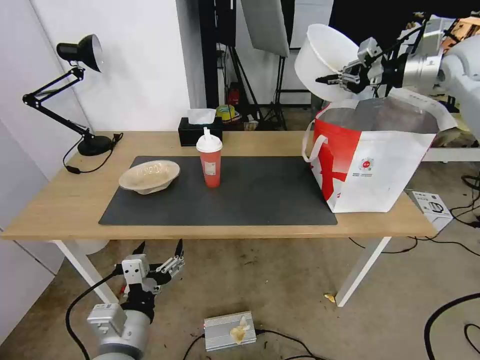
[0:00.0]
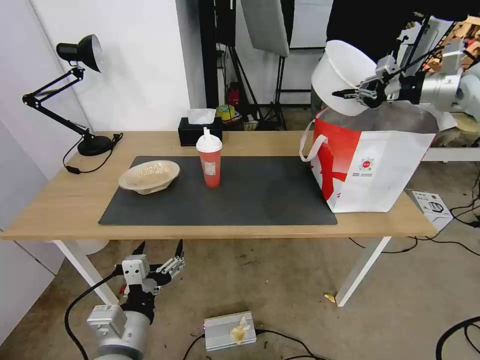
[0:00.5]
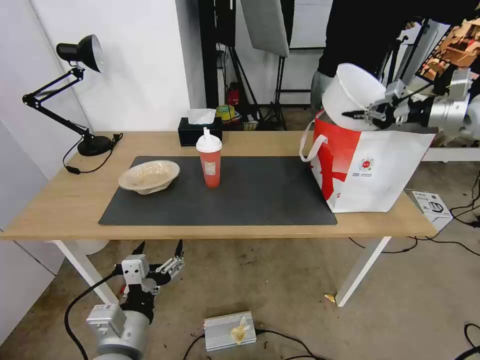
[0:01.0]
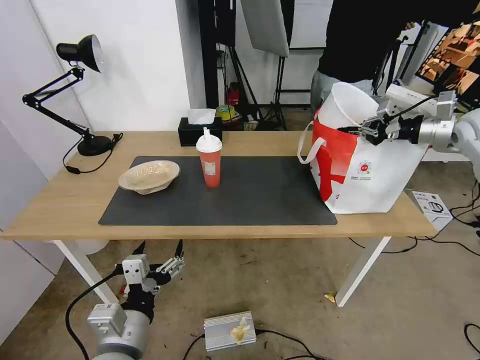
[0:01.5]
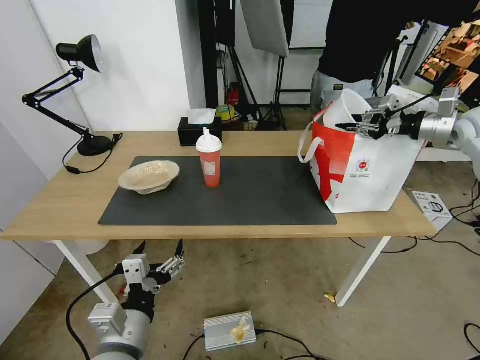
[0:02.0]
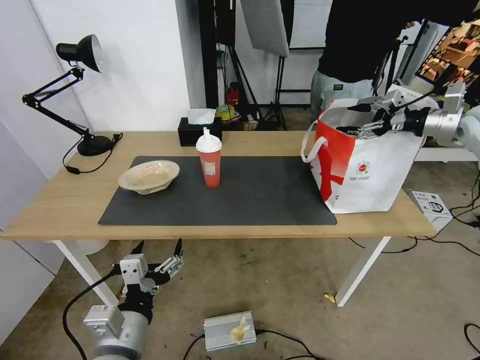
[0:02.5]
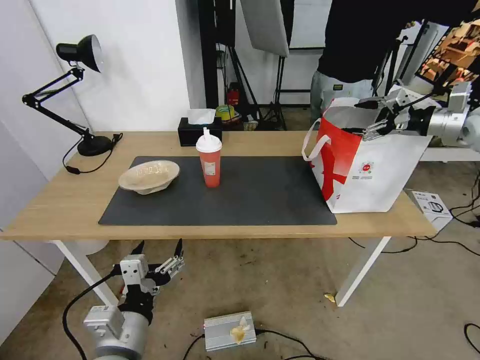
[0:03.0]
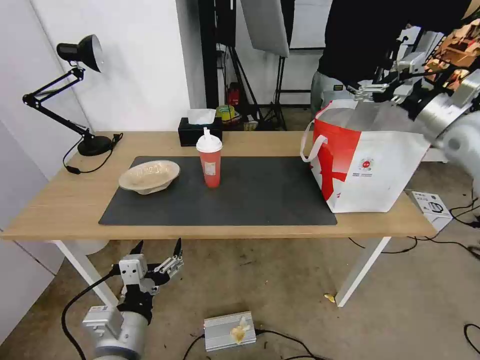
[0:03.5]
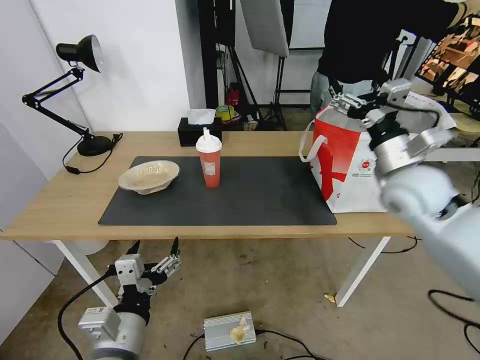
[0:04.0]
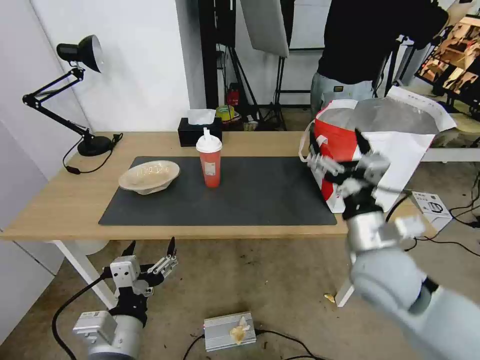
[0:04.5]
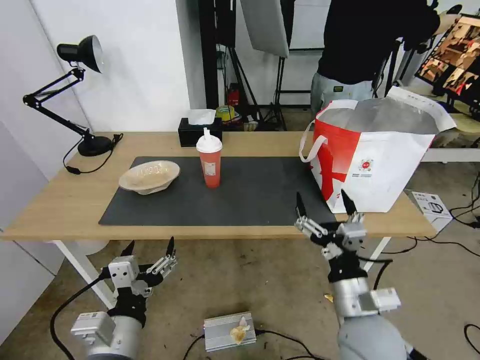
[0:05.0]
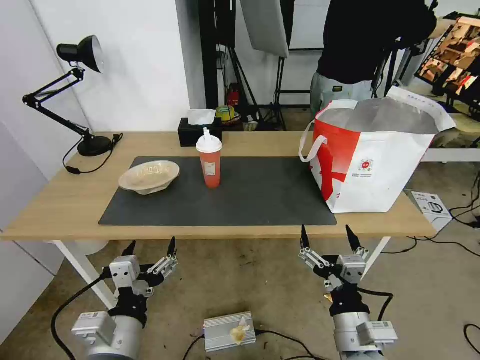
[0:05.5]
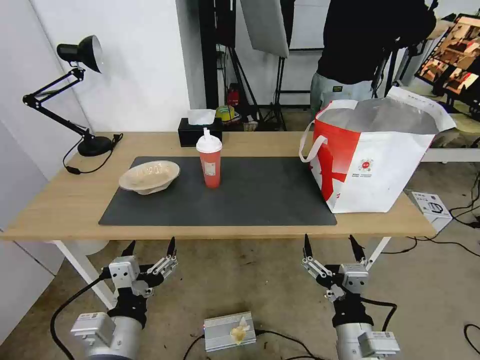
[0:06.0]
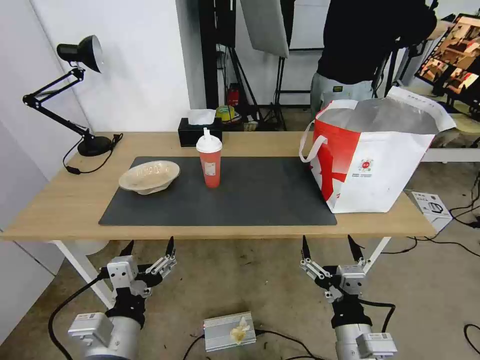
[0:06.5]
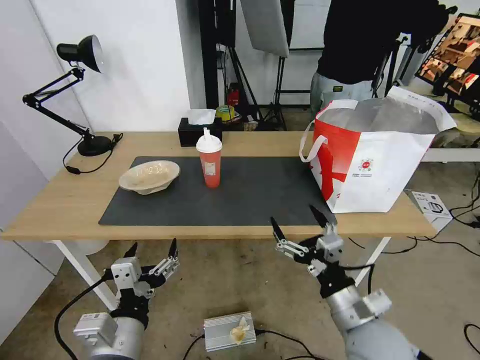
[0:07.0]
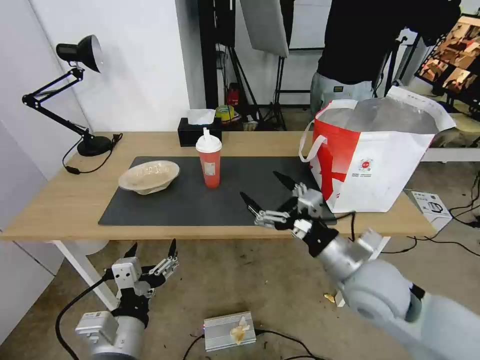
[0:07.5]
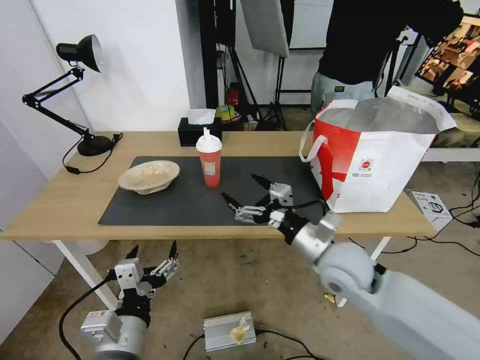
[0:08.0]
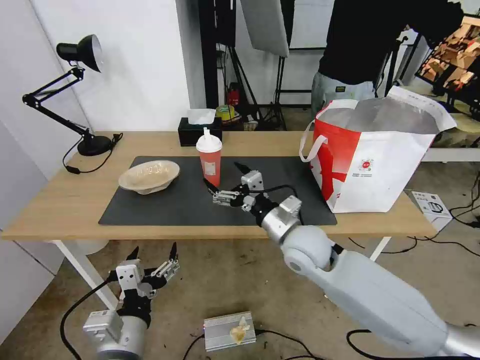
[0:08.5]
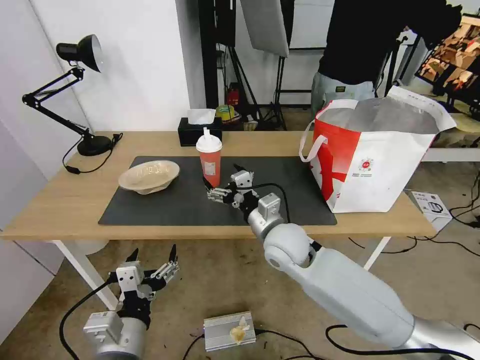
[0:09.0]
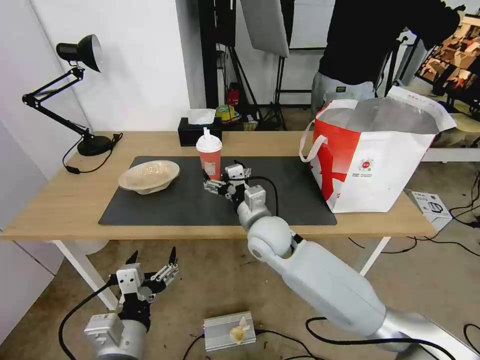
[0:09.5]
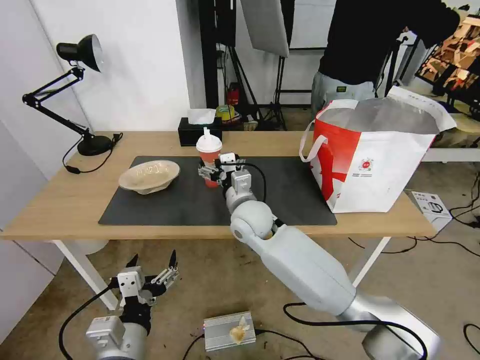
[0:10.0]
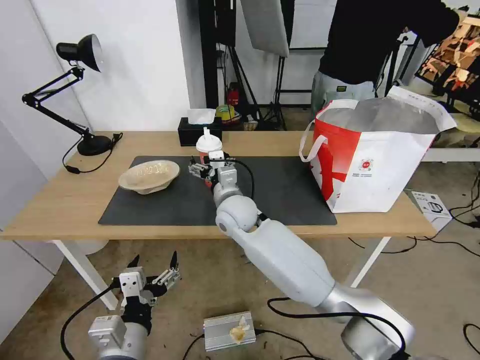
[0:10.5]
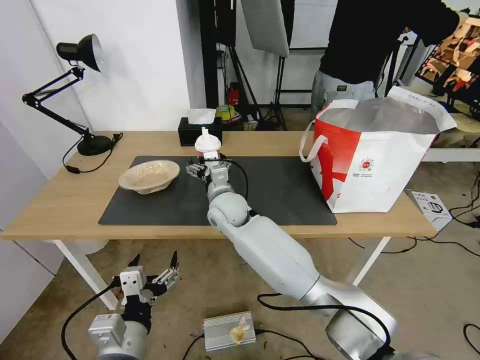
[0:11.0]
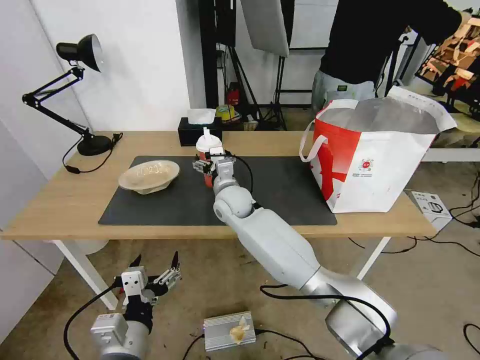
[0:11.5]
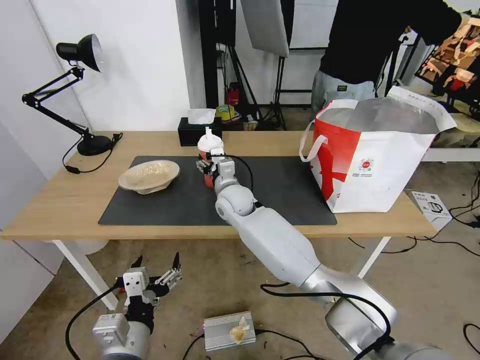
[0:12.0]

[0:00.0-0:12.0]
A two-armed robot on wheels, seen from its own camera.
Task of the whole recording: Pick up the trash from the table and place it into the takeout bag.
0:00.0 to 0:02.0: The right gripper heads downward and to the right, covering roughly 15 cm.
0:02.0 to 0:04.0: The right gripper travels to the left and backward by some 25 cm, and opens its fingers.
0:04.0 to 0:06.0: The right gripper goes approximately 35 cm backward, downward and to the left.
0:06.0 to 0:08.0: The right gripper is displaced forward by roughly 20 cm.
0:08.0 to 0:10.0: The right gripper moves to the left and forward, about 20 cm.
0:10.0 to 0:12.0: The right gripper heads forward, covering about 10 cm.

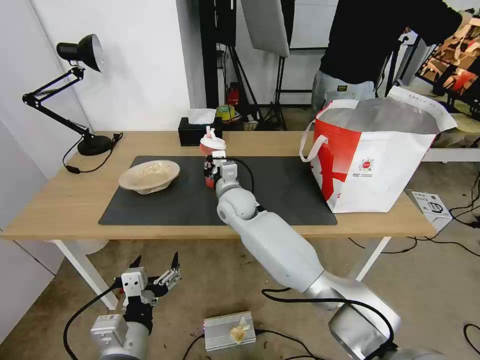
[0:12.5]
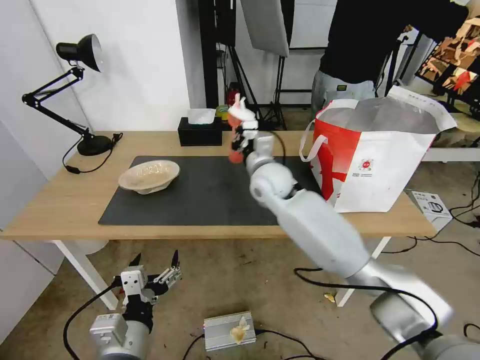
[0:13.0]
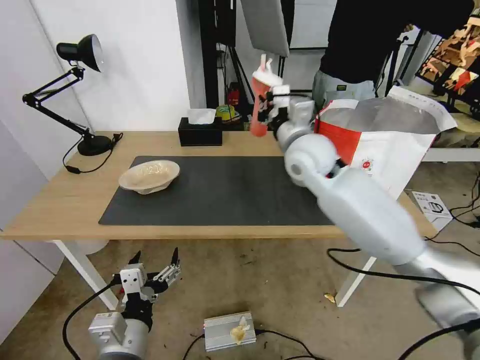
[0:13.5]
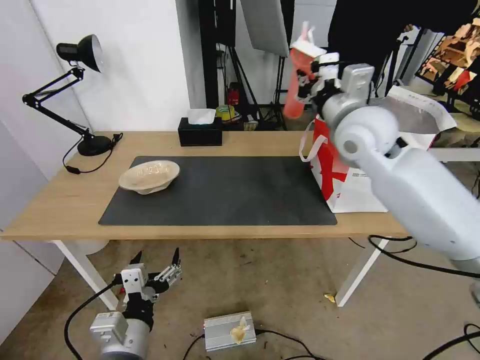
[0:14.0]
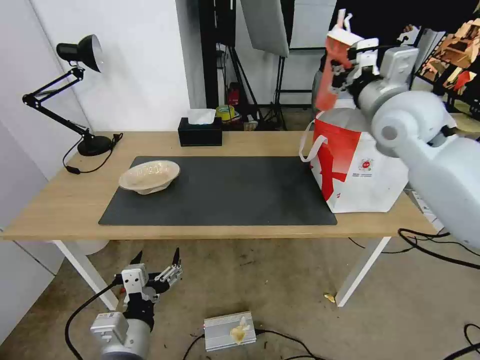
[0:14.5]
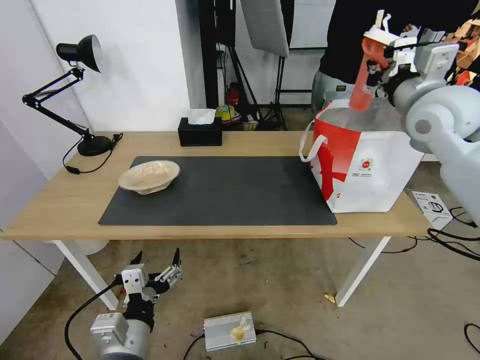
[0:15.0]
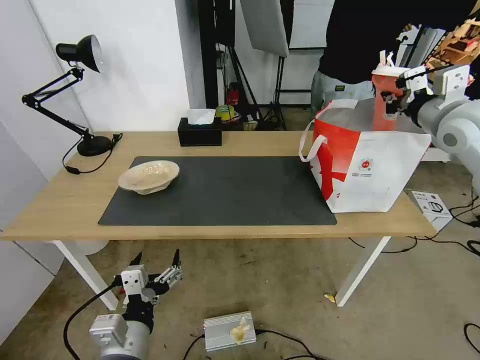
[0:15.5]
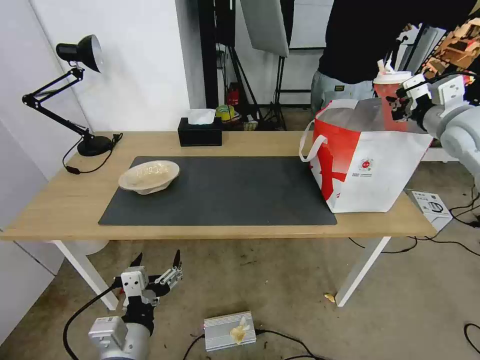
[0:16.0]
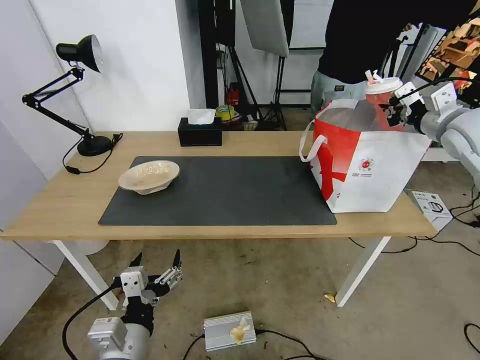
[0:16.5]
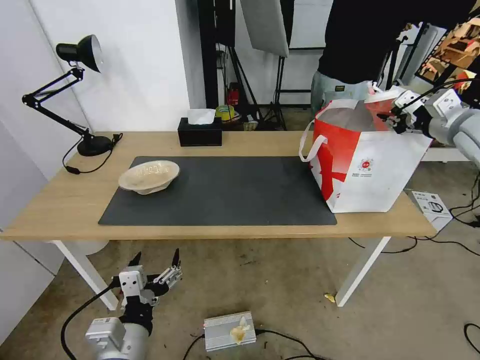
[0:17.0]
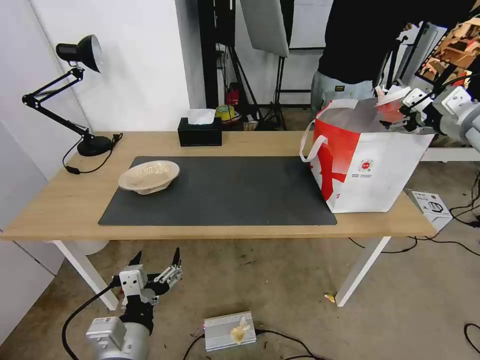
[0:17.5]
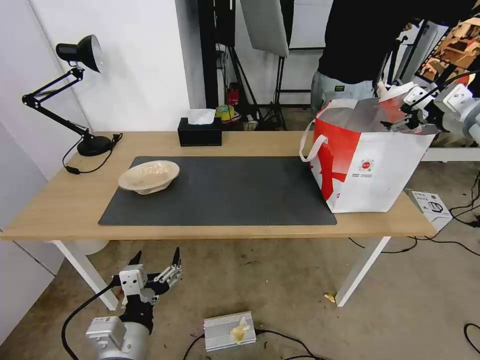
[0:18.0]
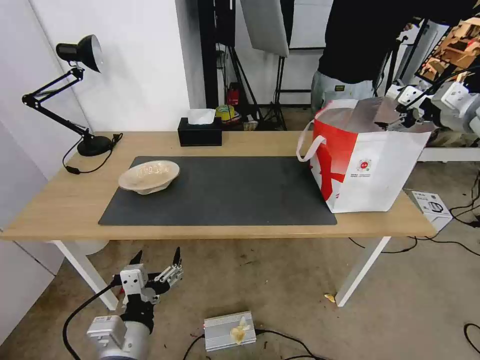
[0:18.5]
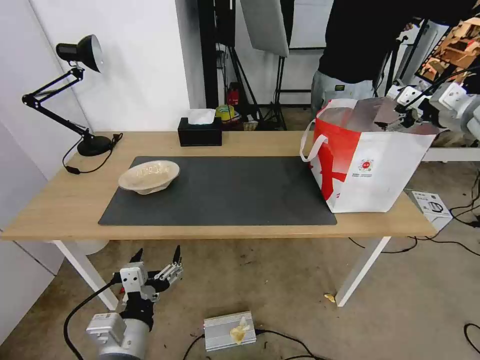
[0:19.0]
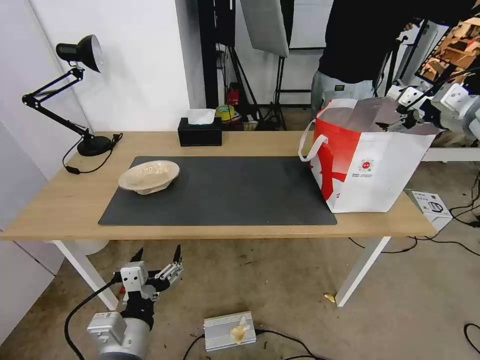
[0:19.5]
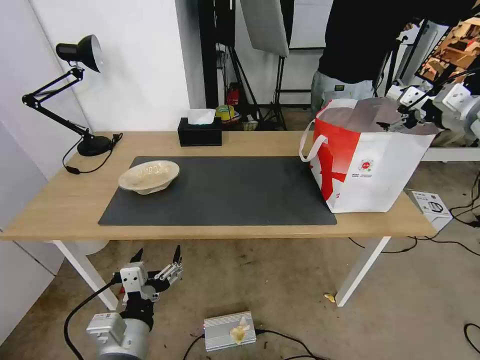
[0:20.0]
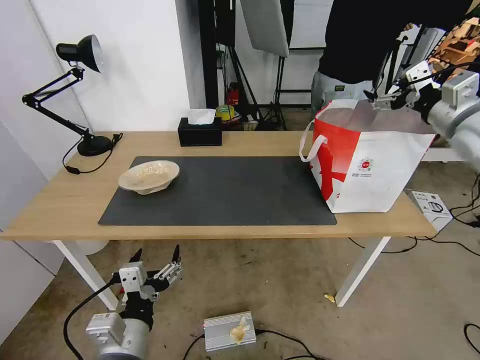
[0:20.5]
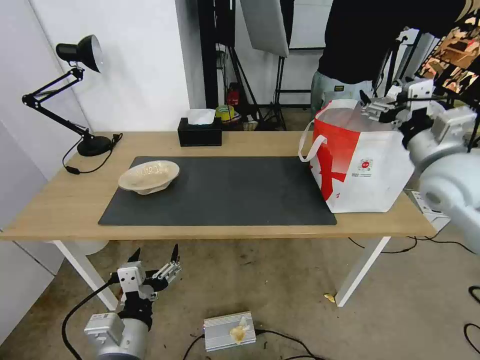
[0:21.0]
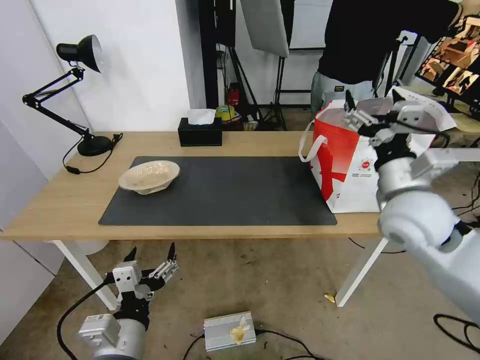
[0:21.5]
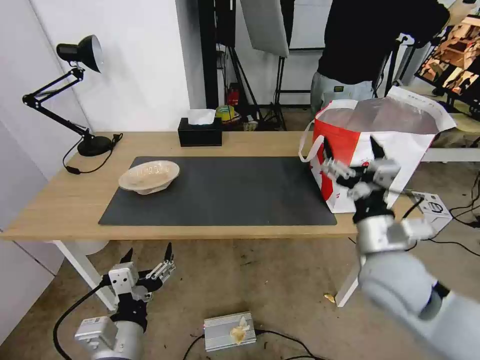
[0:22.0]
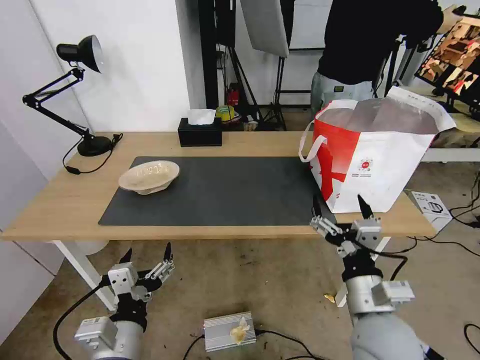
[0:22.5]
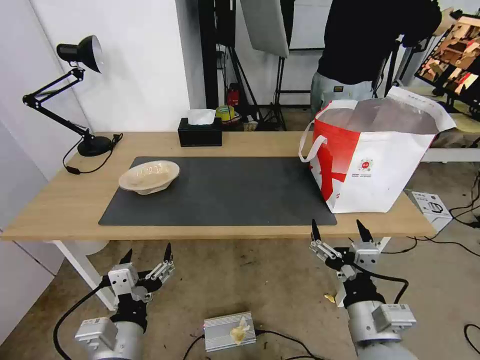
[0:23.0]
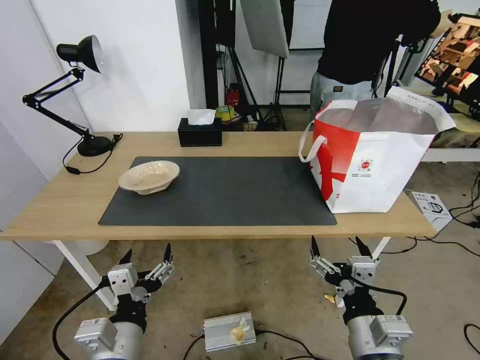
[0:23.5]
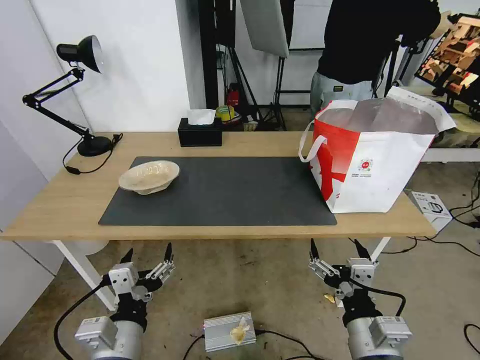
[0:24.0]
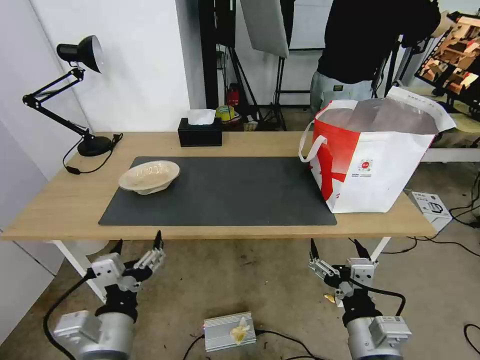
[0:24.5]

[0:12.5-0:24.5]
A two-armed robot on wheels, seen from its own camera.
Task of the whole recording: Pick up the trash from the table and place it into the takeout bag.
0:12.5 to 0:14.5: The right gripper is displaced to the right and upward by some 40 cm.
0:14.5 to 0:16.5: The right gripper travels to the right by approximately 15 cm.
0:16.5 to 0:18.5: The right gripper opens up.
0:18.5 to 0:20.5: The right gripper changes place by some 5 cm.
0:20.5 to 0:22.5: The right gripper is displaced backward, downward and to the left by about 40 cm.
0:22.5 to 0:24.5: The right gripper heads backward, covering roughly 5 cm.

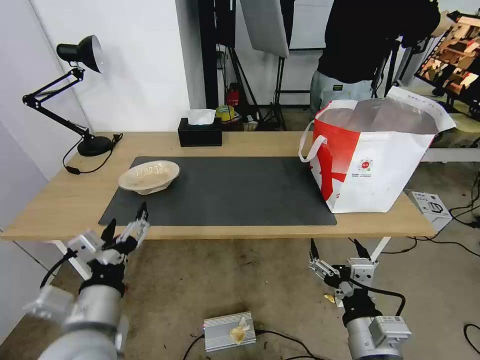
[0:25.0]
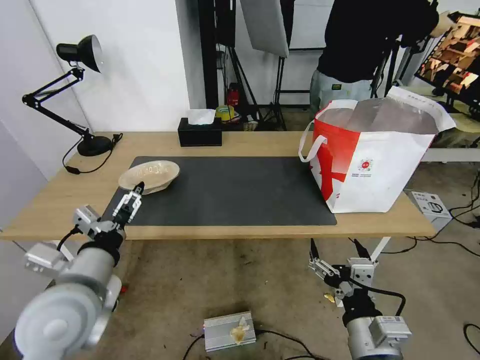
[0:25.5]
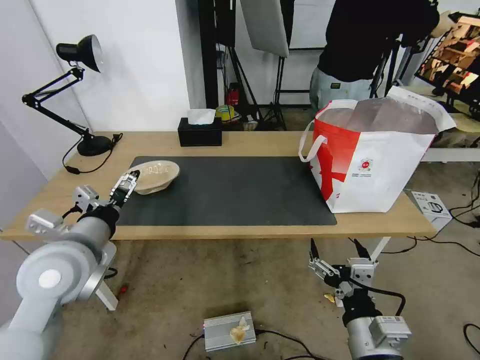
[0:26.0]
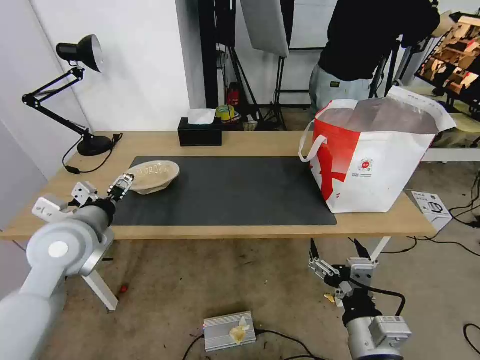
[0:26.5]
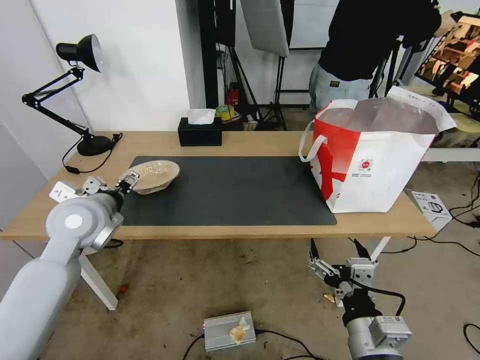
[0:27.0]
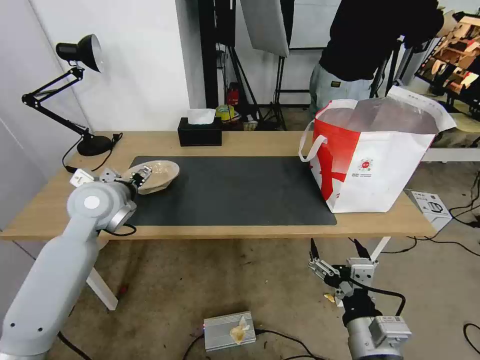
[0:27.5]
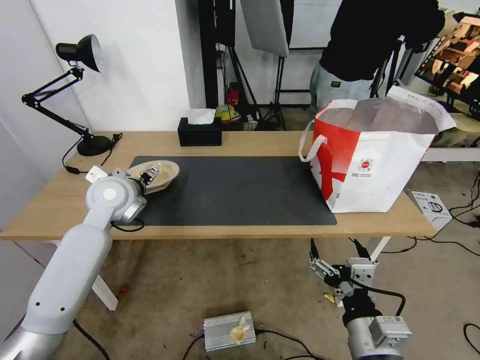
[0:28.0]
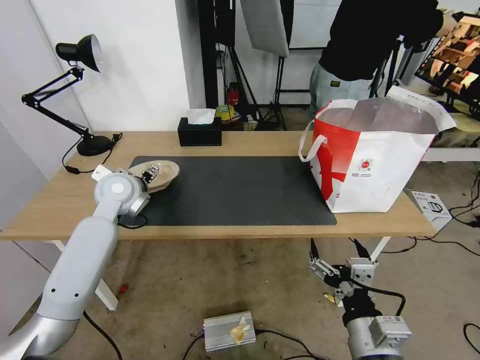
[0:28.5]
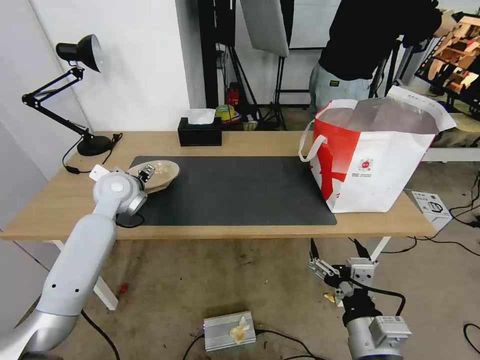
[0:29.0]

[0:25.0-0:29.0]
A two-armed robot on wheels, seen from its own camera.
Task of the whole recording: Pick up the trash from the table and place it into the takeout bag.
0:25.0 to 0:27.0: The left gripper goes some 20 cm forward.
0:27.0 to 0:29.0: The left gripper heads forward, covering about 10 cm.
